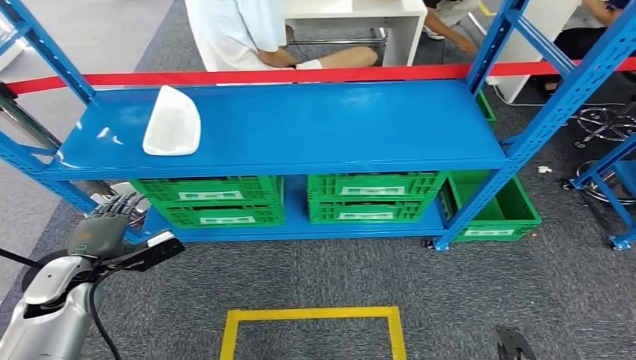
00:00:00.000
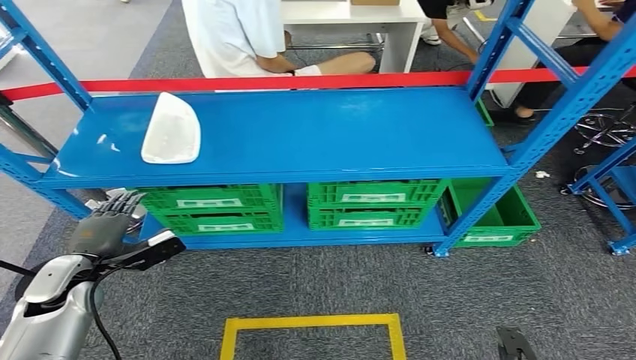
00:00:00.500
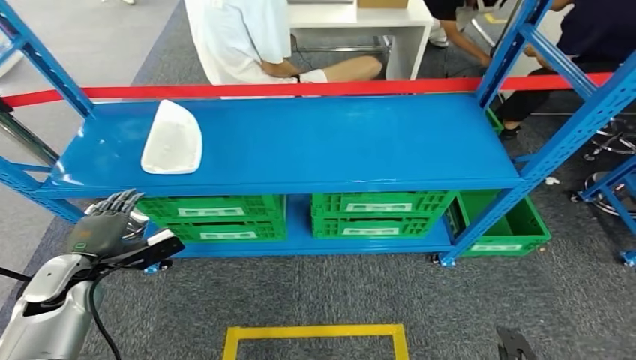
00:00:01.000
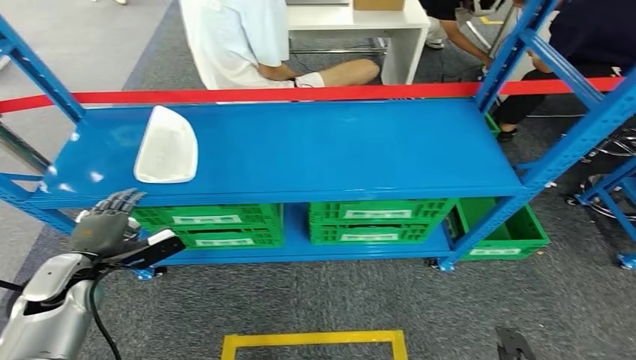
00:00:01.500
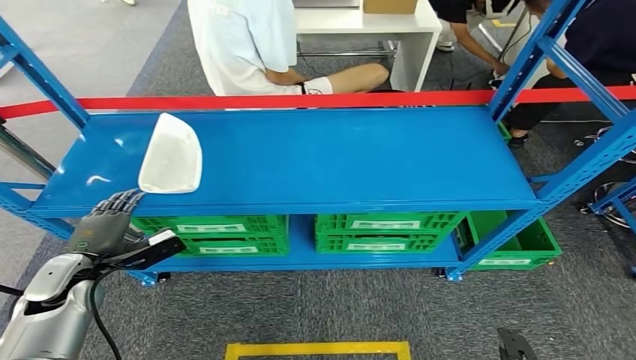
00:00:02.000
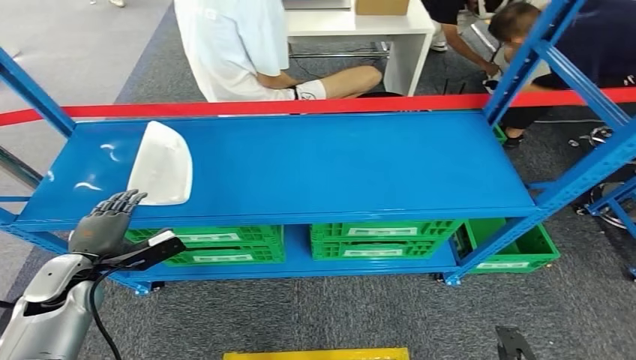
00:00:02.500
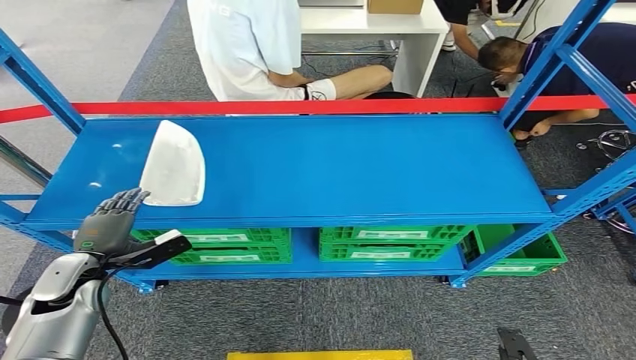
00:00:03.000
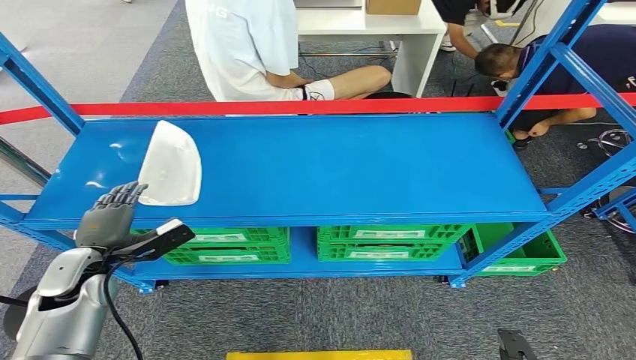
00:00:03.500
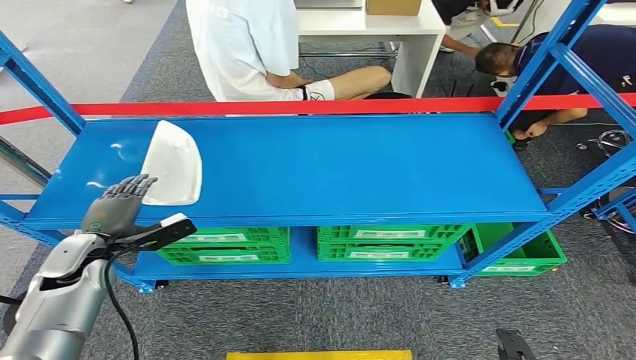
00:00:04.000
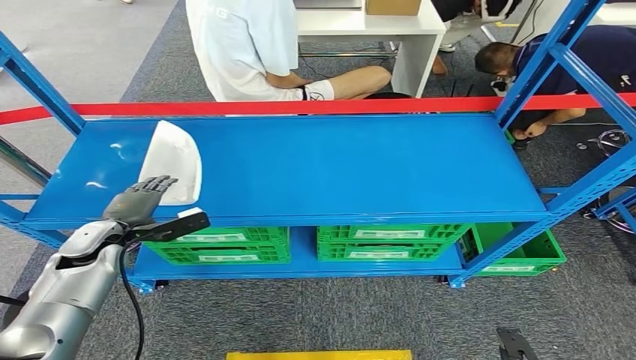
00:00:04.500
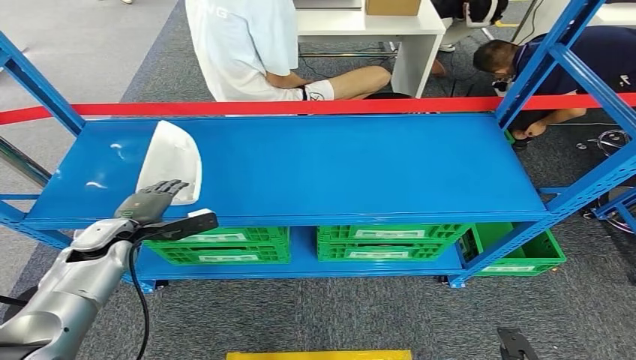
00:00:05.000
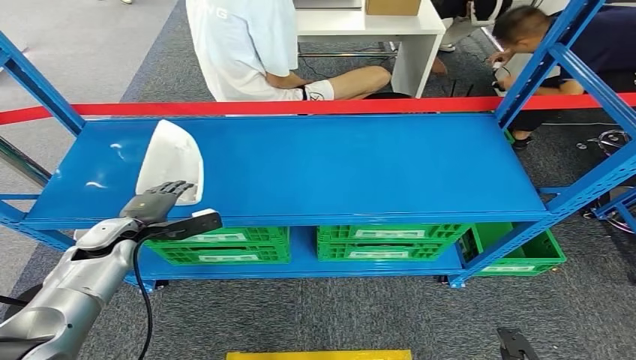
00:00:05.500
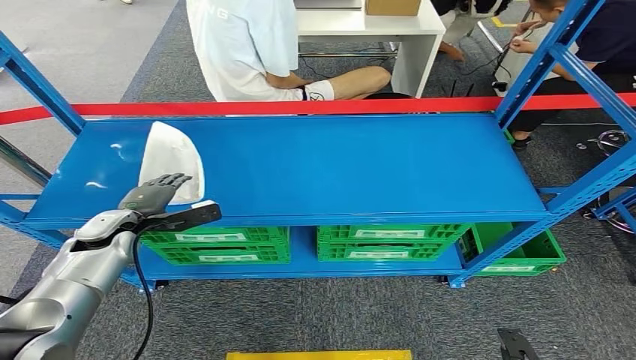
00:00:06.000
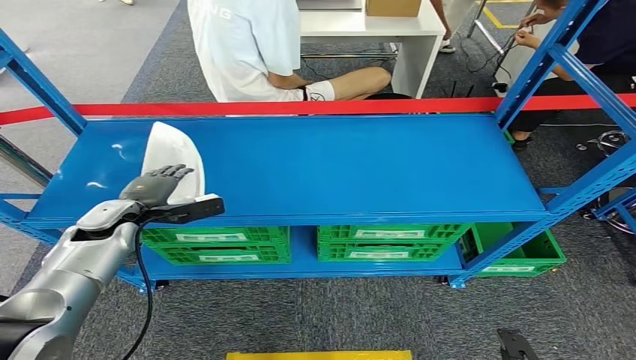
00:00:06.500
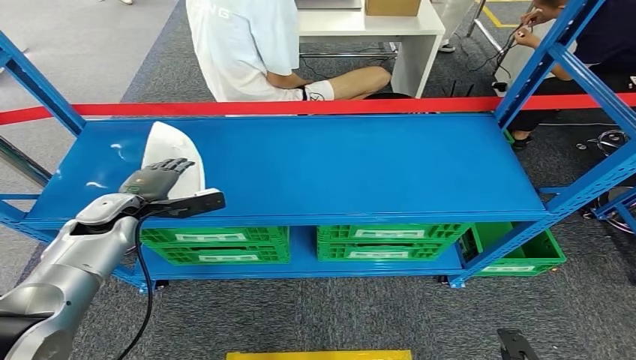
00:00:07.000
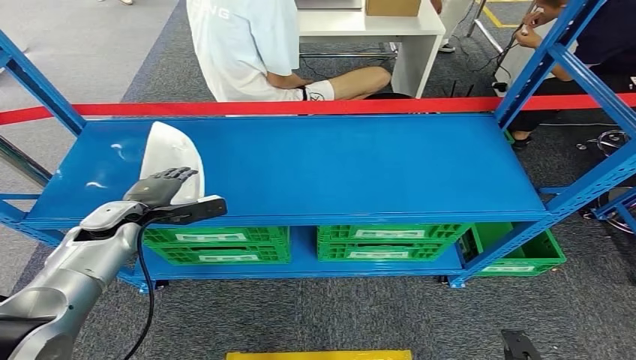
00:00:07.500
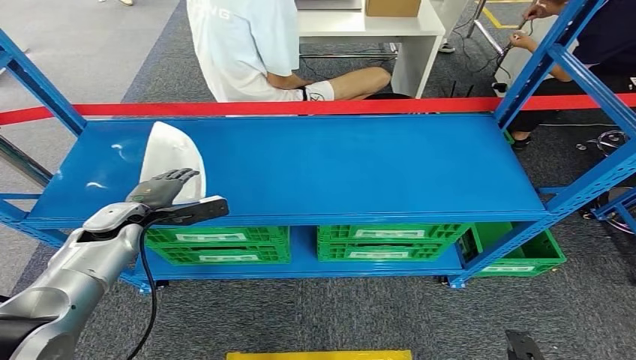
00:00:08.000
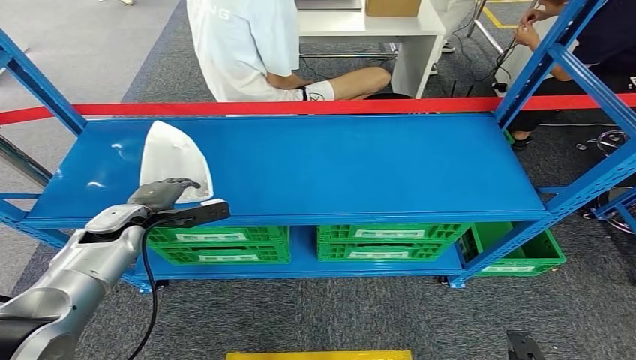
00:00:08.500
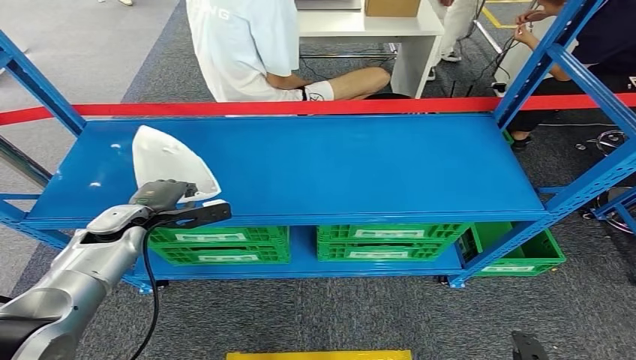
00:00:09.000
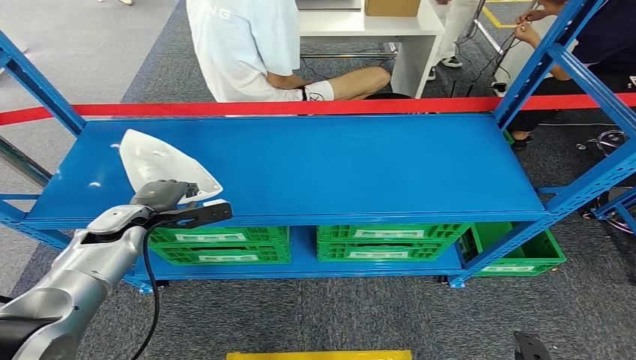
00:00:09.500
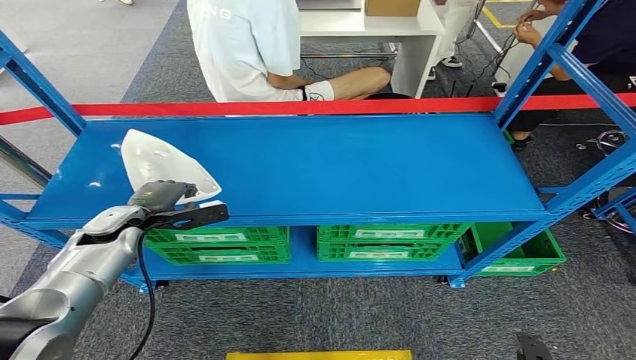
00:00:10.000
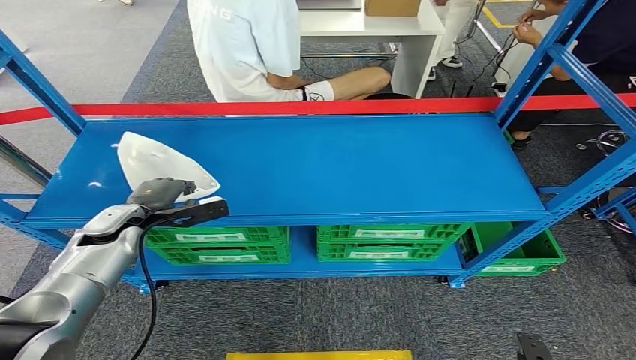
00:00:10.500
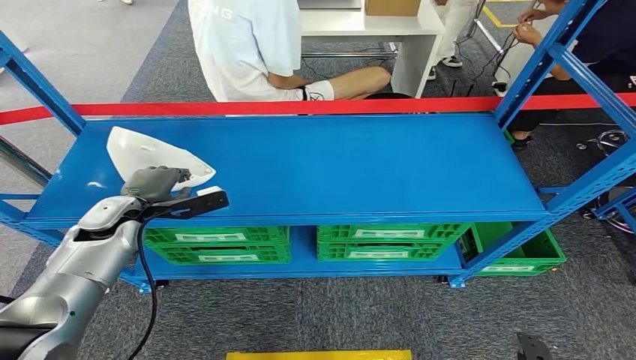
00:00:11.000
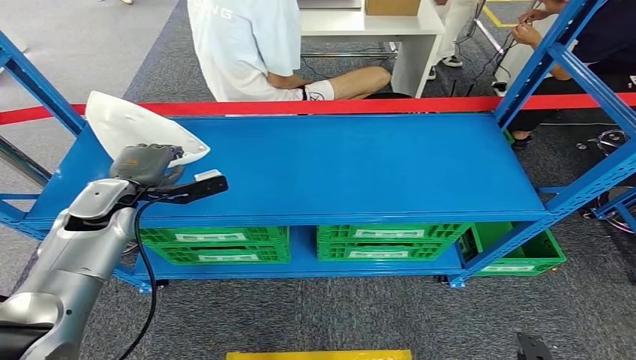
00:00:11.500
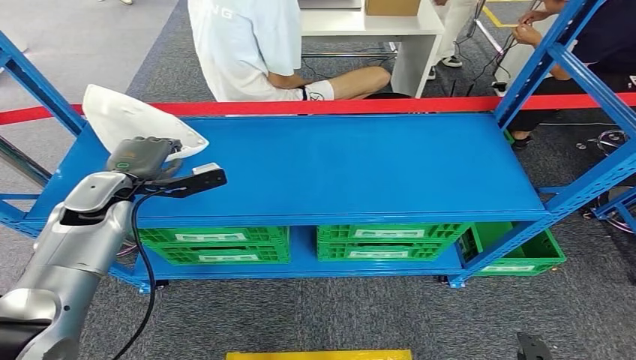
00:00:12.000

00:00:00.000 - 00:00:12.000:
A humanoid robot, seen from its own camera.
Step, 00:00:00.000 - 00:00:11.000: Pick up the small parts from the shelf.
00:00:04.000 - 00:00:06.000: The left hand heads forward, covering about 5 cm.
00:00:06.000 - 00:00:08.000: There are only small adjustments of the hands.
00:00:08.000 - 00:00:10.000: Neither hand changes place.
00:00:10.000 - 00:00:12.000: The left hand heads upward, covering approximately 10 cm.

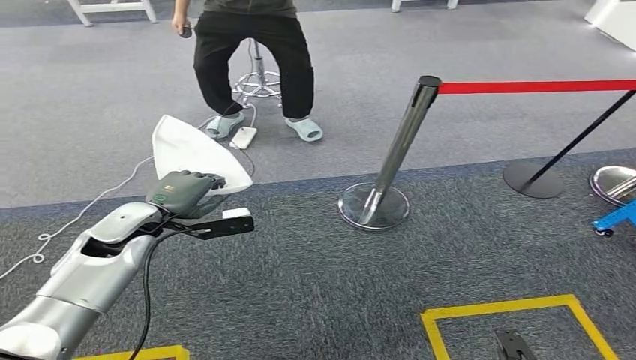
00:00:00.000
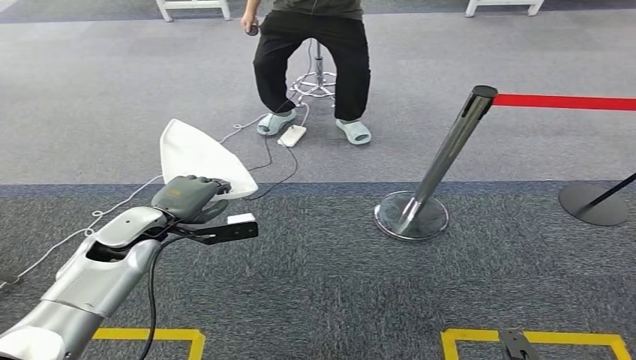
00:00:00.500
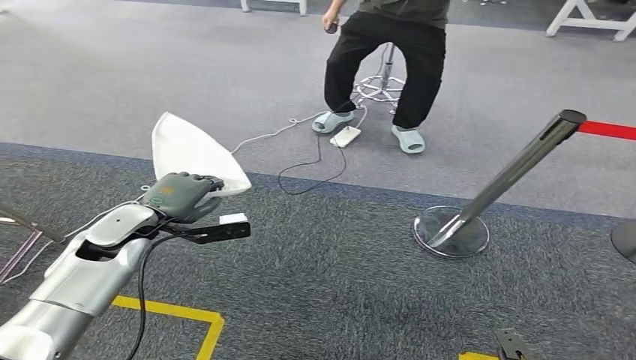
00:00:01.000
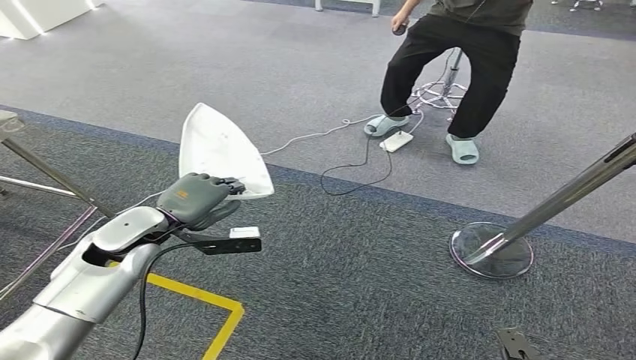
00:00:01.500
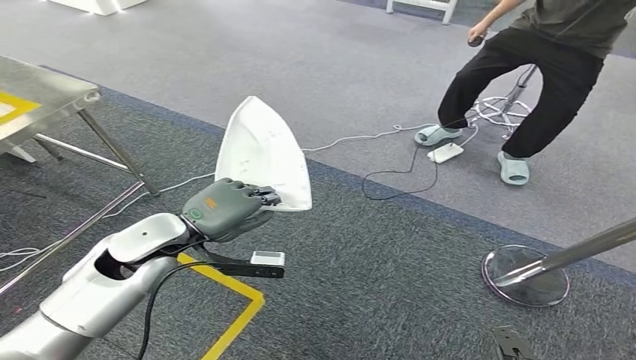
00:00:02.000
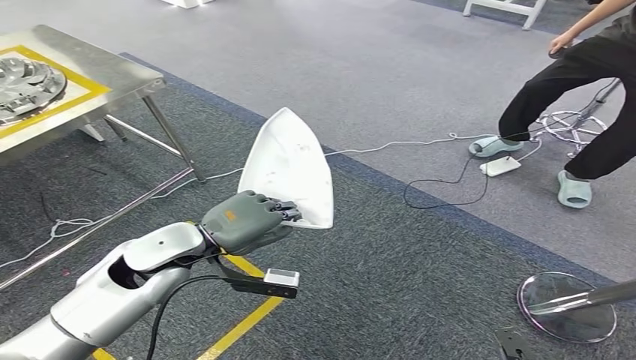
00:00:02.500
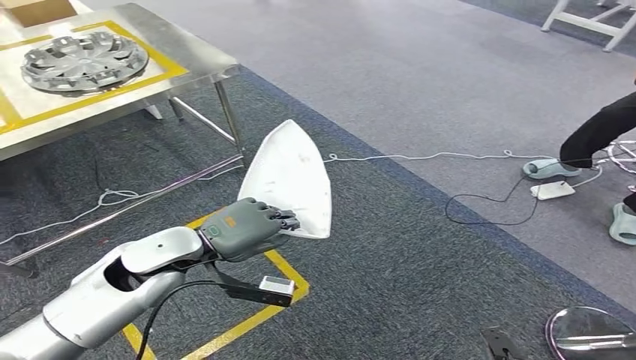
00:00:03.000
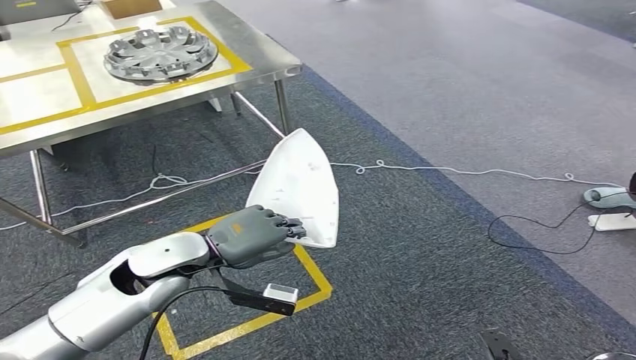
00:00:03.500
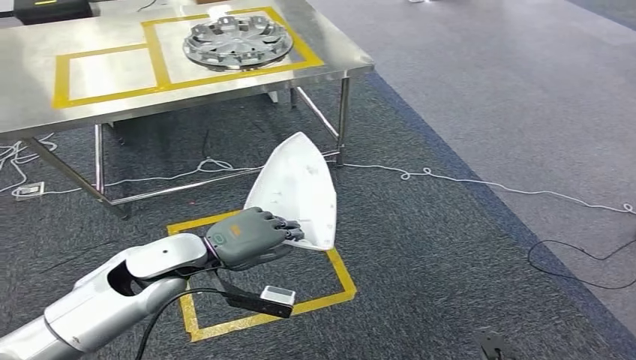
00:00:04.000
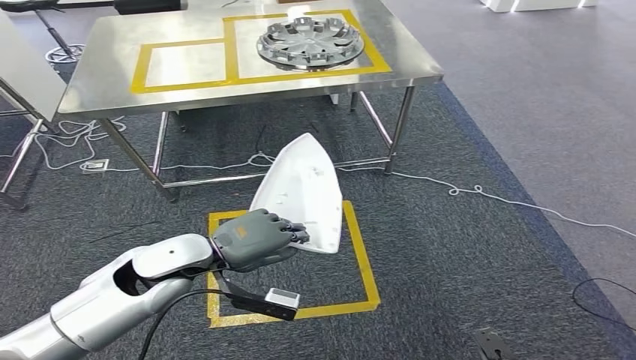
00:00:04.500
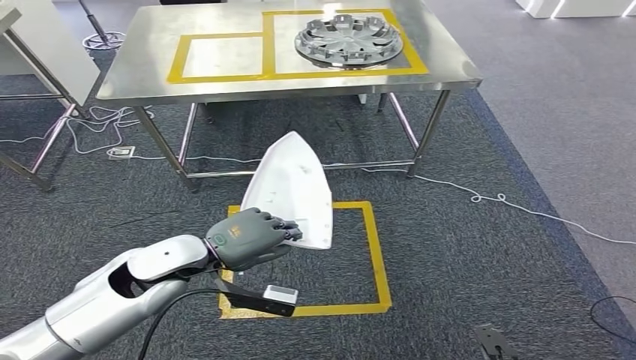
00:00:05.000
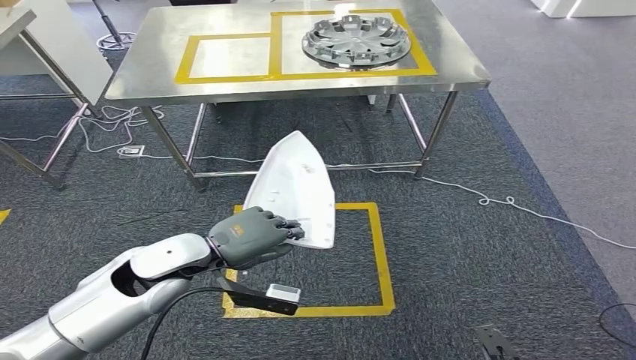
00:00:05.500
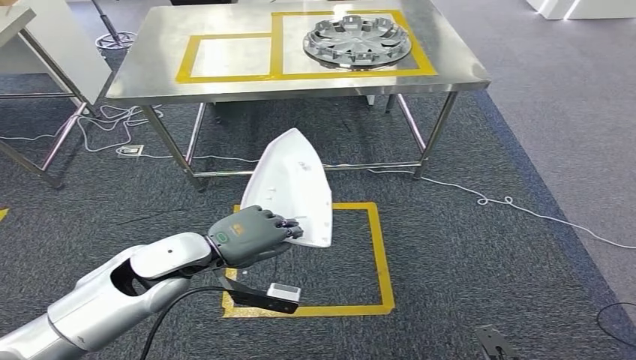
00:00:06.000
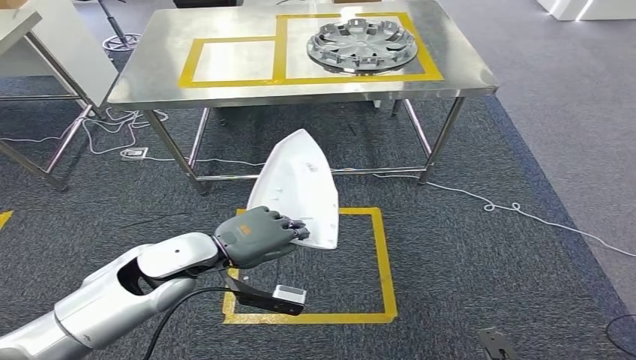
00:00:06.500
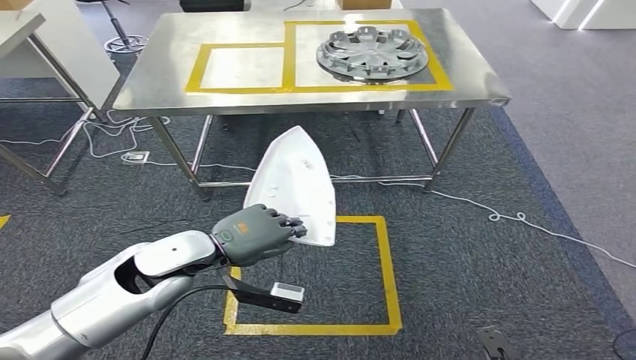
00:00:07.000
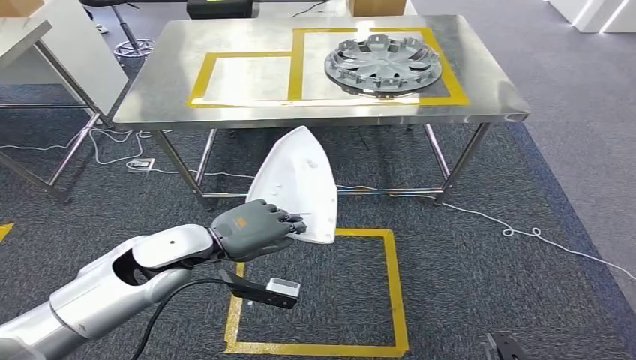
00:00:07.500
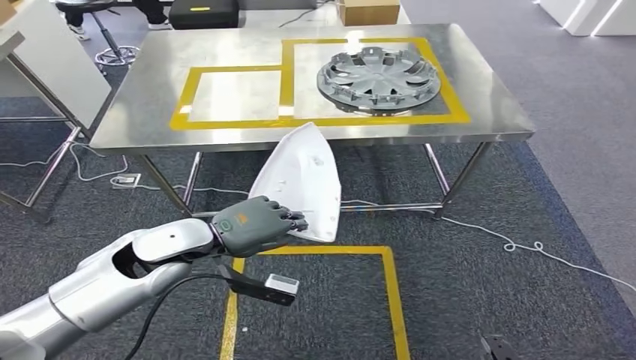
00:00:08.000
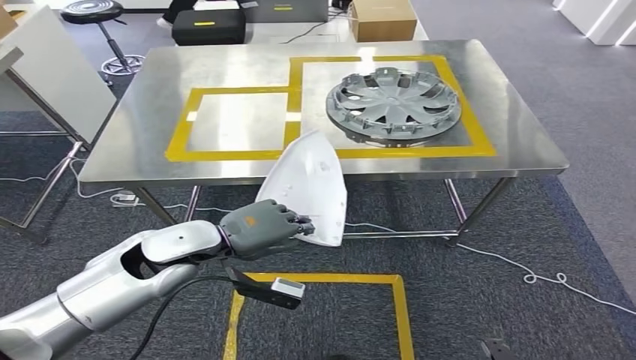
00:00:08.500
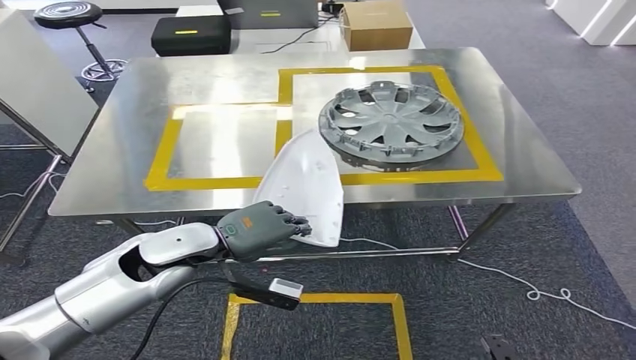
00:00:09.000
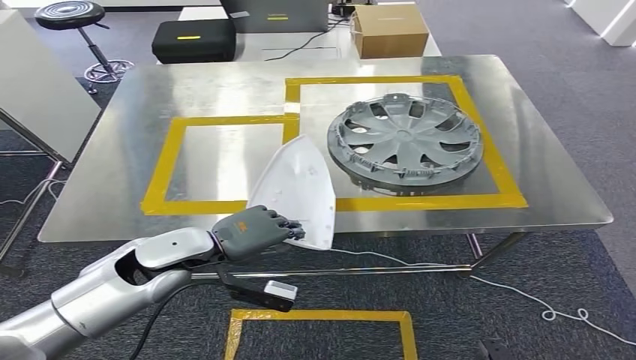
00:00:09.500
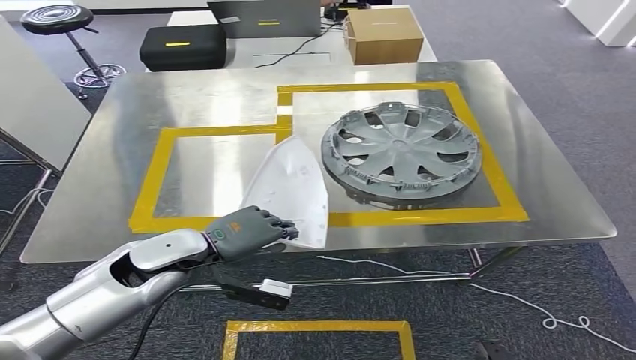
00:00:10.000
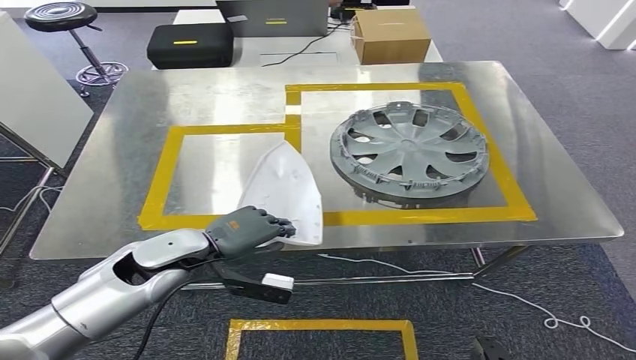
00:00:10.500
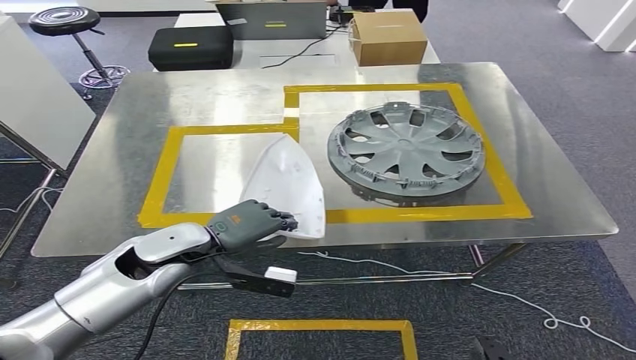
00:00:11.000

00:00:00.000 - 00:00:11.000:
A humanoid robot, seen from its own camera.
Step, 00:00:00.000 - 00:00:08.000: Move the small parts to the workbench.
